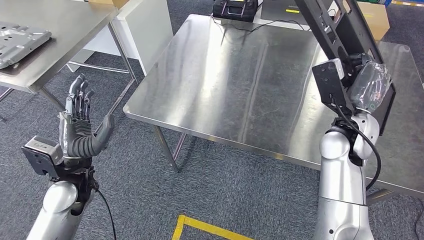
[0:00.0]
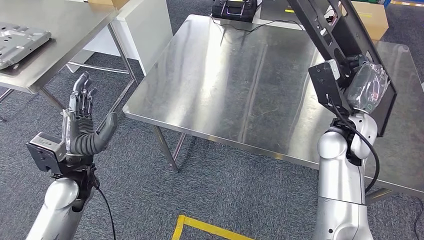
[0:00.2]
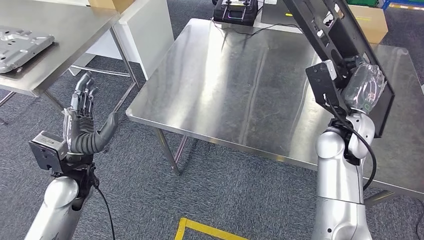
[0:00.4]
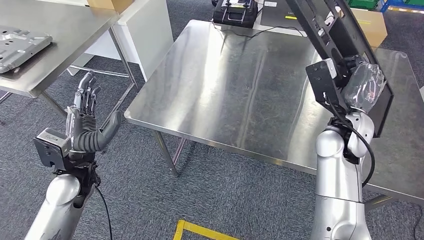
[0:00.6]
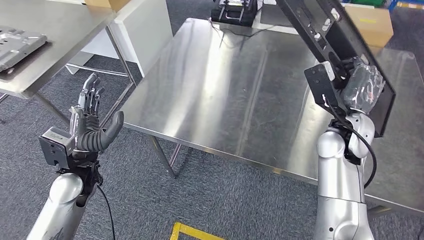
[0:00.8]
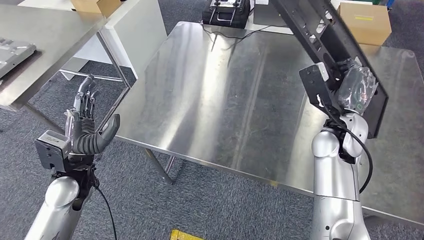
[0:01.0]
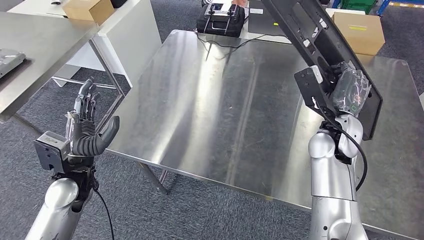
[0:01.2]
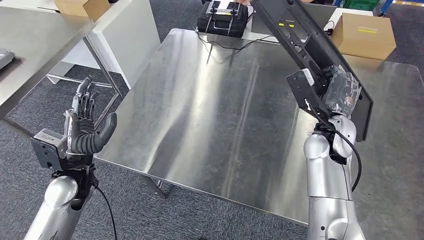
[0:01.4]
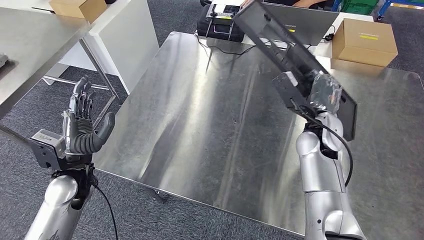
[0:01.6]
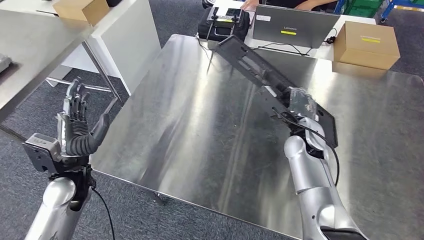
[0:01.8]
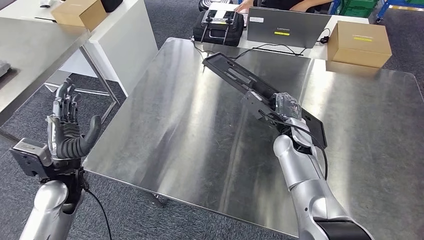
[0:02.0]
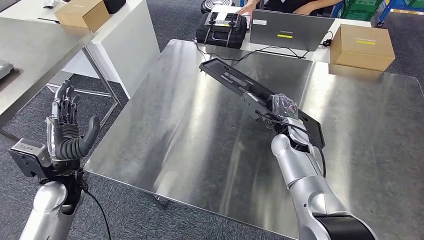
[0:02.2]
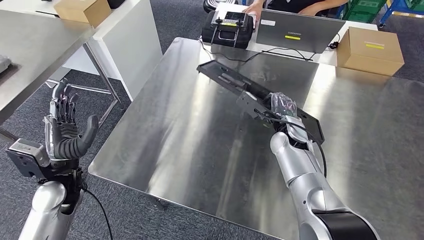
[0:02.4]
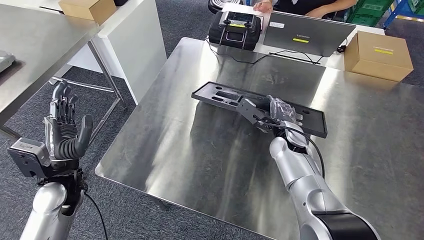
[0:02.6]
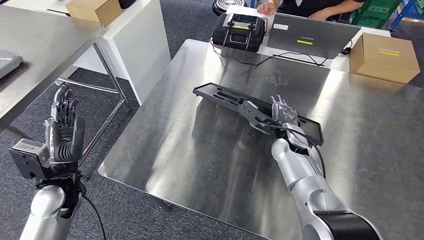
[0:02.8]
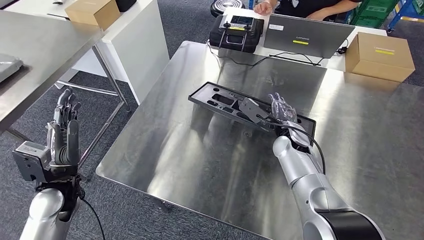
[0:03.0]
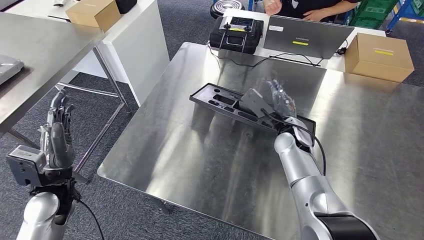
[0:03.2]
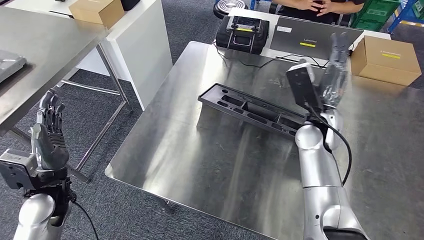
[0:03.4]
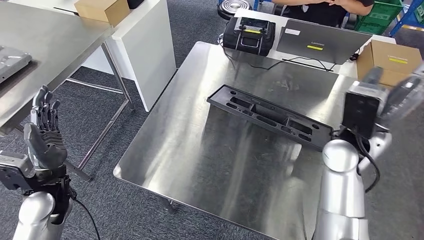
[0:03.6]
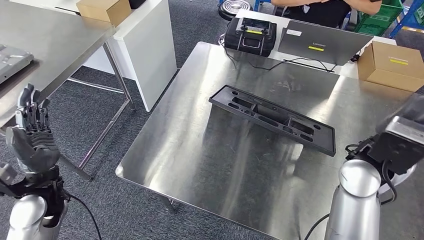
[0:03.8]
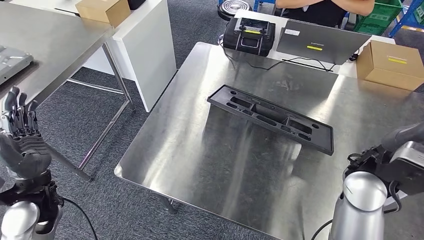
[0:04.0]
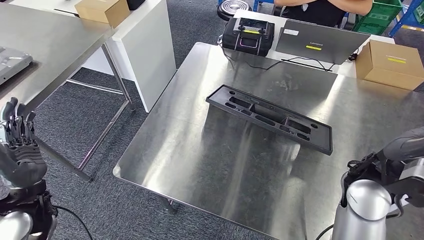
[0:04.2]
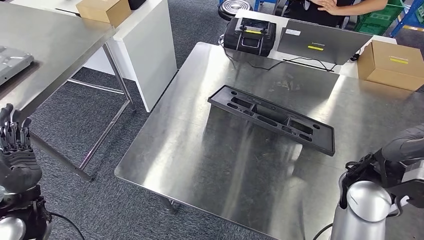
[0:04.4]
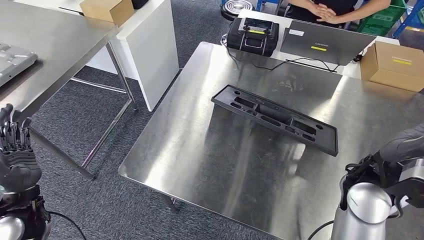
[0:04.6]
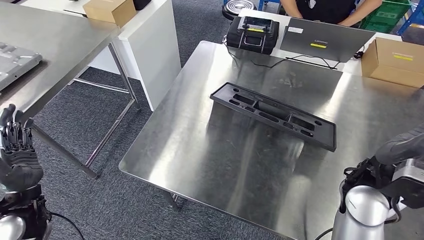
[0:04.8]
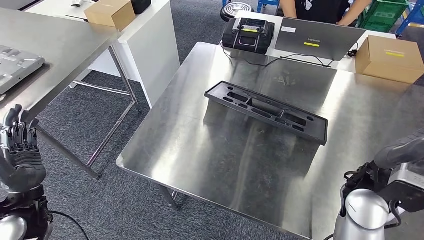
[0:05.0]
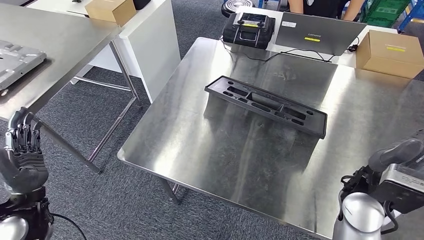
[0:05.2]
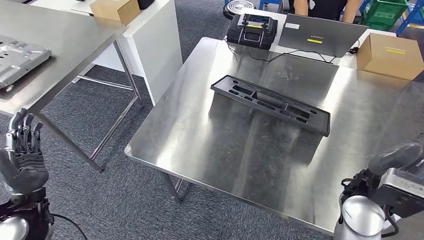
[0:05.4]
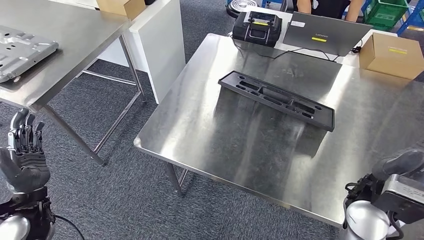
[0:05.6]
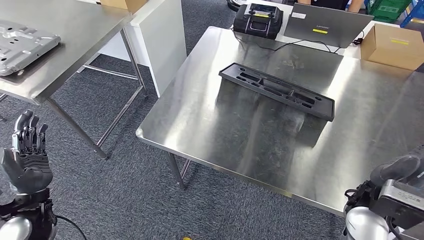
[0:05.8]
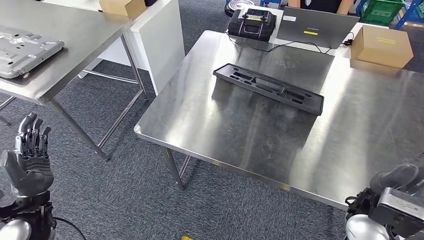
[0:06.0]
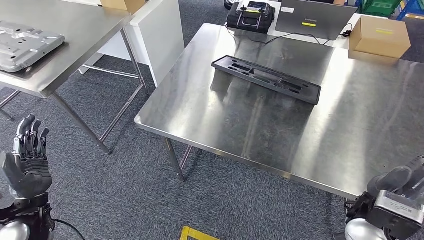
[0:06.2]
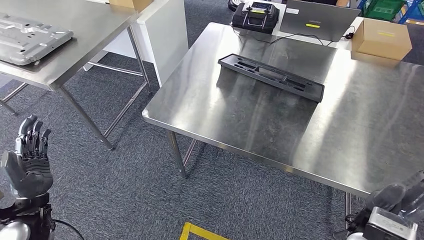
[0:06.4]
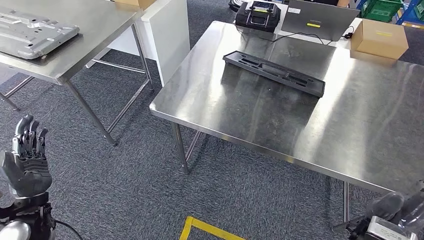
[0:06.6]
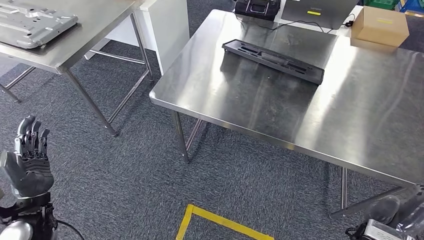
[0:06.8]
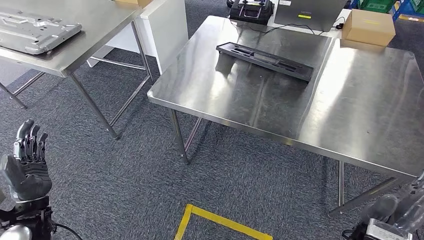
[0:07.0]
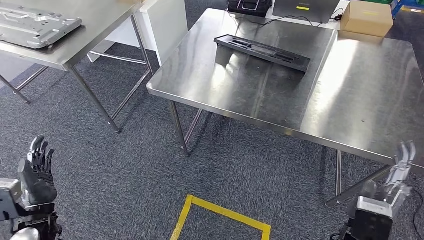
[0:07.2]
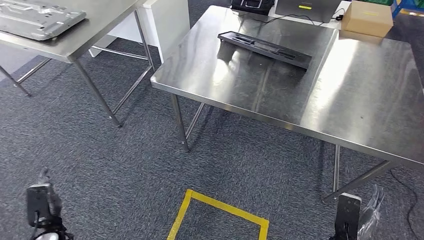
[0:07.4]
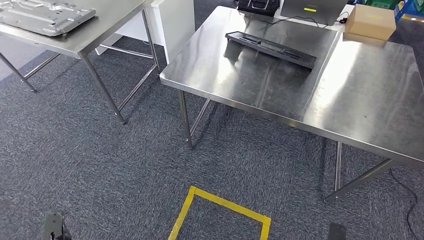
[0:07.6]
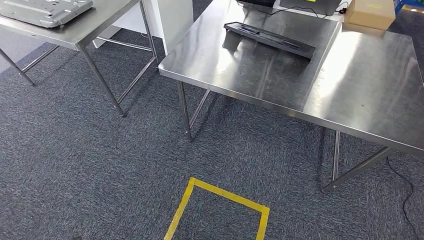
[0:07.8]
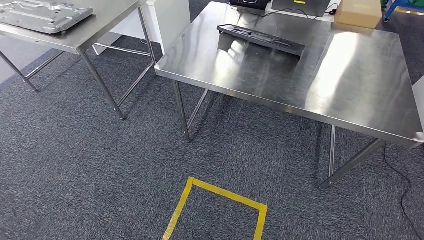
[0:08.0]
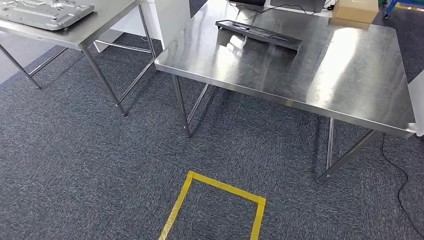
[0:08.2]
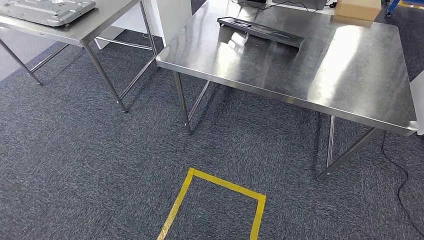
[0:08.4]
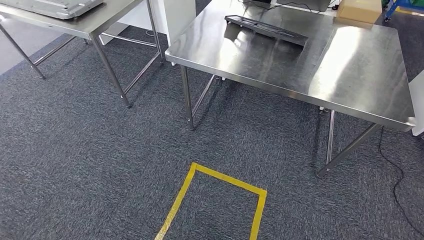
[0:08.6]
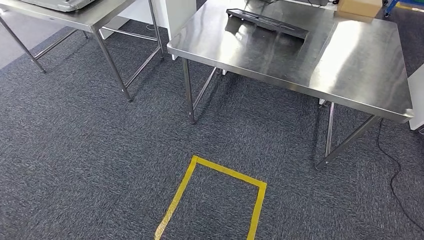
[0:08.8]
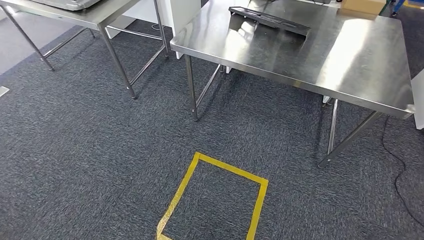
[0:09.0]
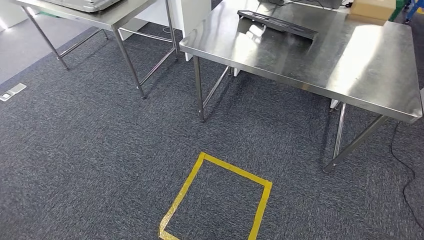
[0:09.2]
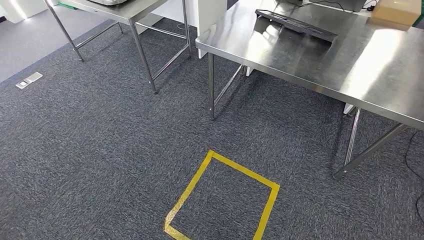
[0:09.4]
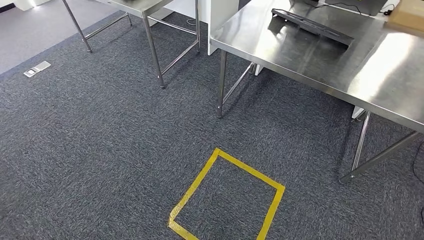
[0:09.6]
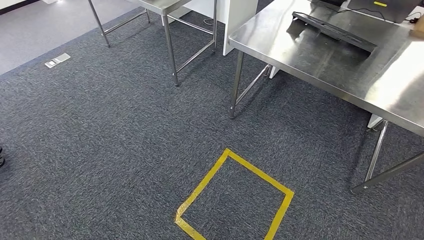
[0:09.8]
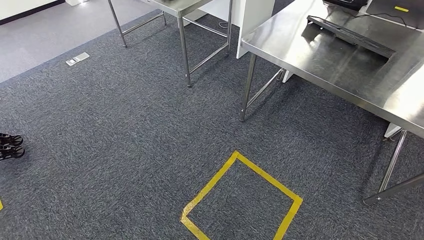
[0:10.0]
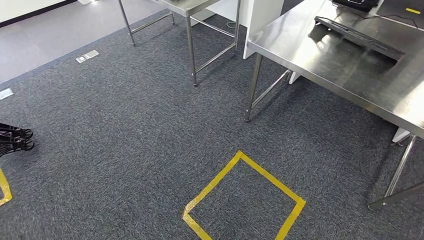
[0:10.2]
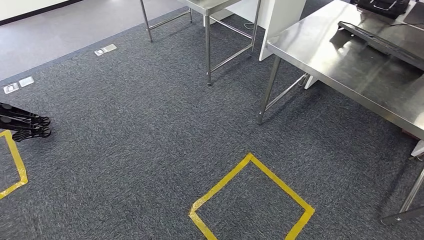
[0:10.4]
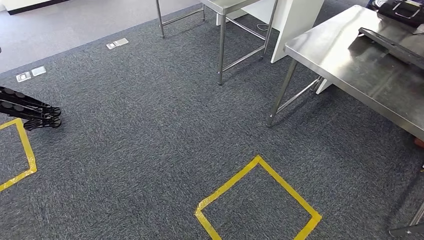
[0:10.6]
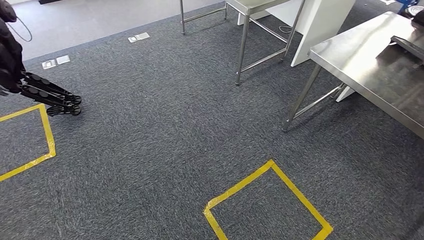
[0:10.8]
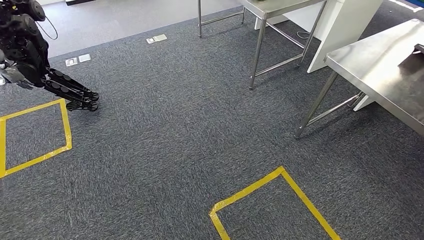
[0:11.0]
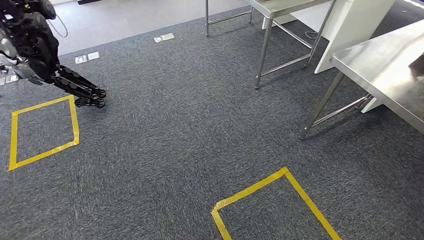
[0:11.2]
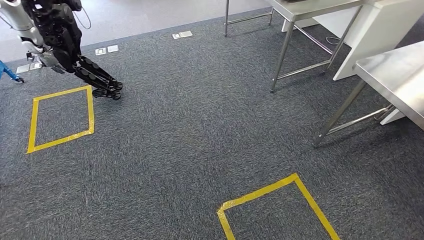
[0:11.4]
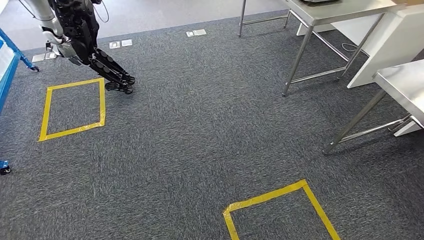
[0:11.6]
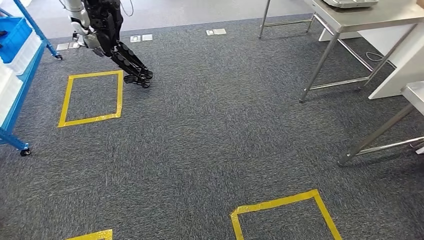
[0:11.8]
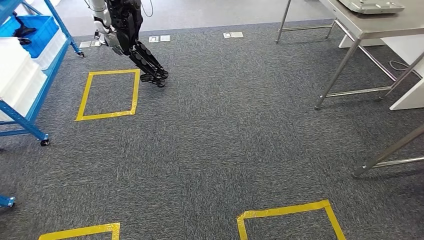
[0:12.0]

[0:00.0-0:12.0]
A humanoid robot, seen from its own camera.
Step, 0:00.0 to 0:05.8: Insert the large material into the corresponding hole on the workbench.

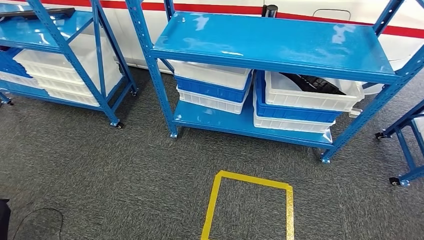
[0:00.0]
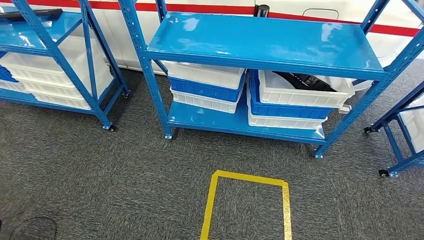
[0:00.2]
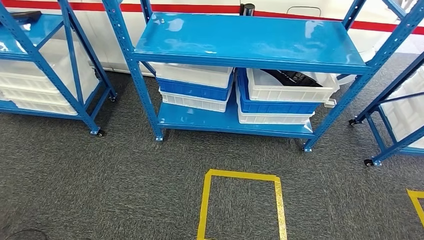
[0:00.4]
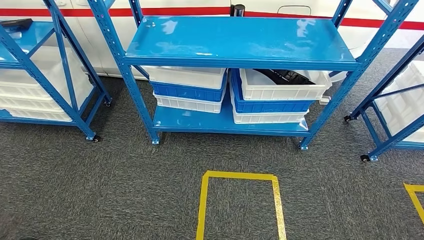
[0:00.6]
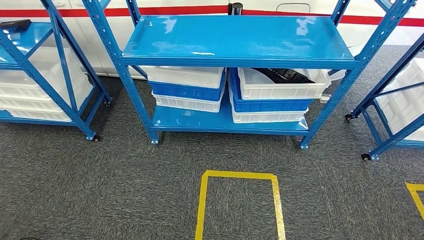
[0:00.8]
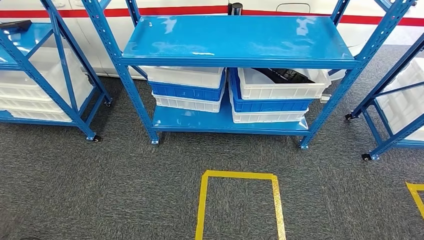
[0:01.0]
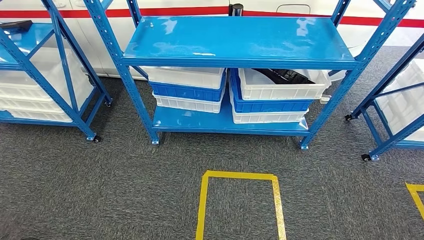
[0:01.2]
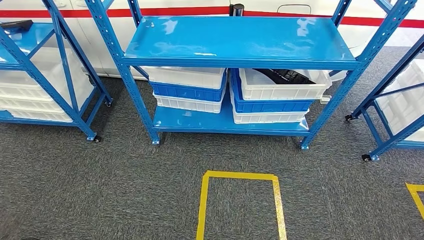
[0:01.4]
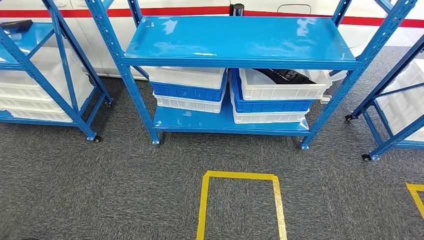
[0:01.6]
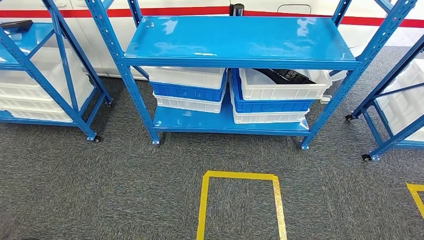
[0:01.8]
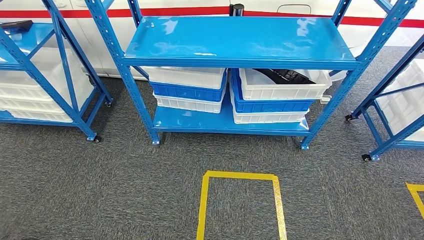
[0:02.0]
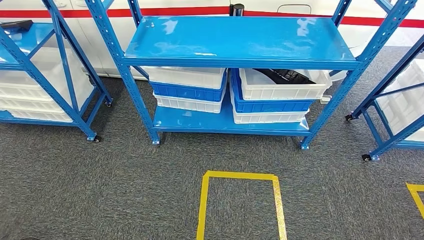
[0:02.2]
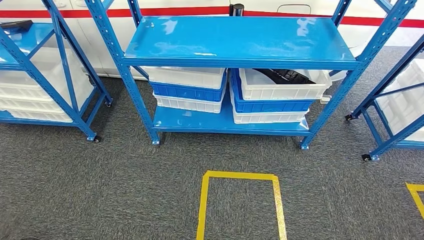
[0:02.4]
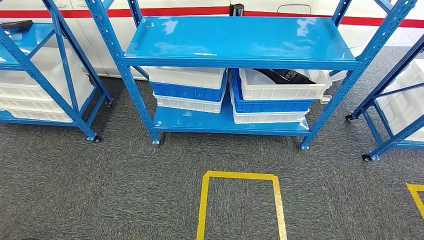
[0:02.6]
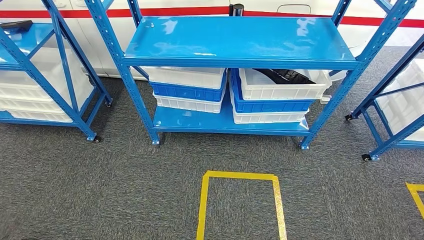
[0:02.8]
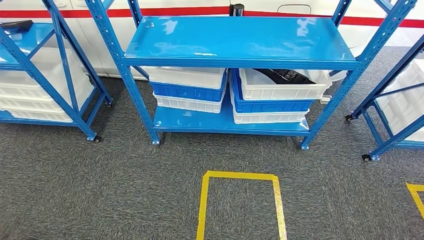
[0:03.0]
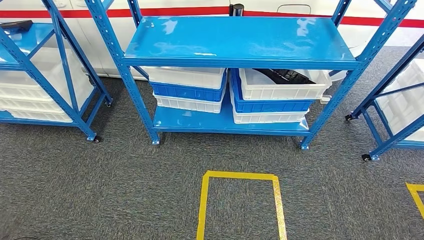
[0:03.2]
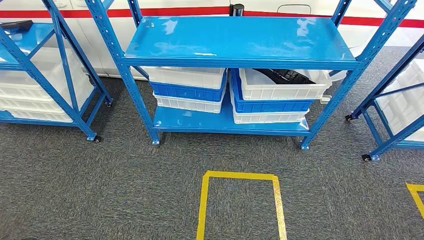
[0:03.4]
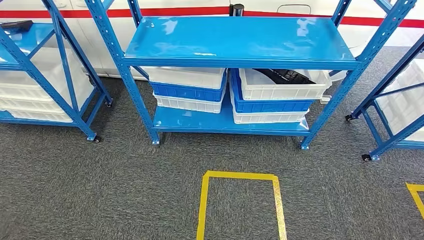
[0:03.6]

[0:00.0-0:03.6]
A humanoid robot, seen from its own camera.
Step, 0:00.0 to 0:03.4: Move to the initial position of the shelf.
